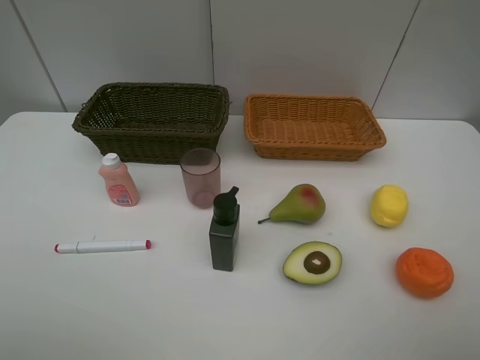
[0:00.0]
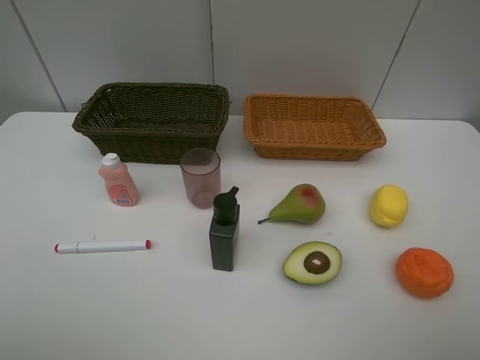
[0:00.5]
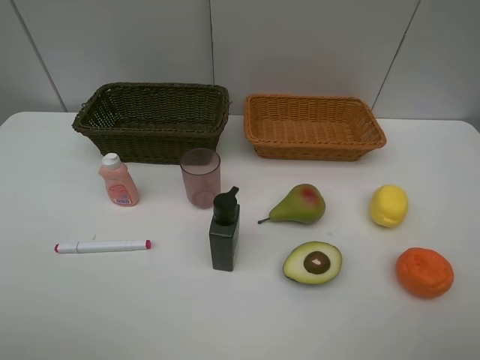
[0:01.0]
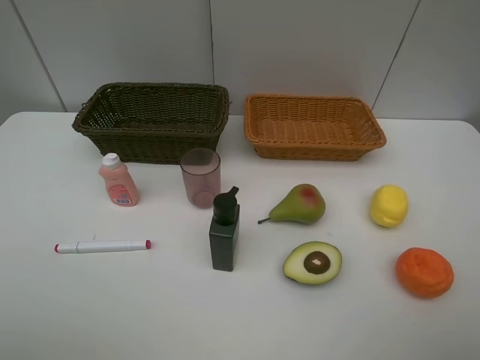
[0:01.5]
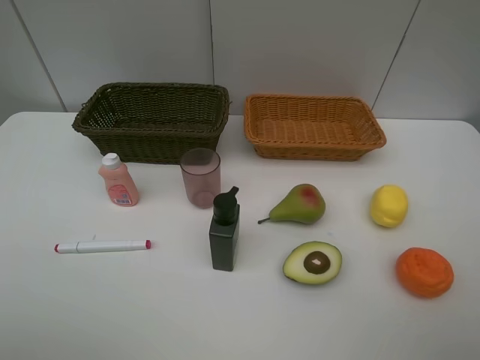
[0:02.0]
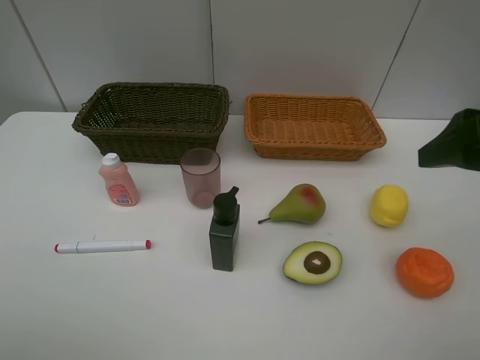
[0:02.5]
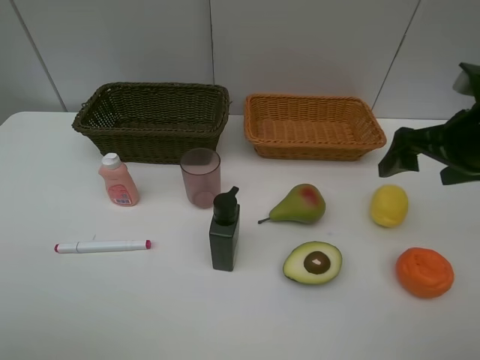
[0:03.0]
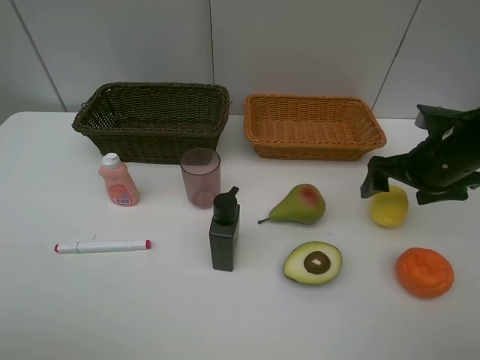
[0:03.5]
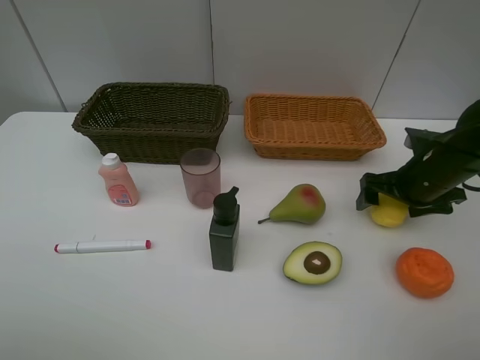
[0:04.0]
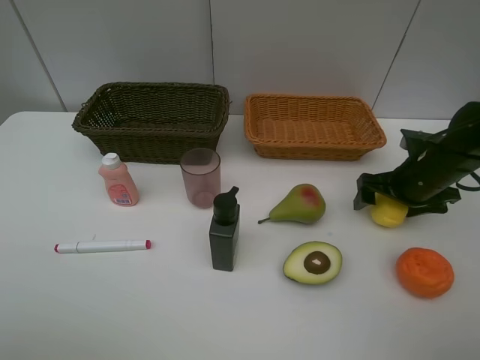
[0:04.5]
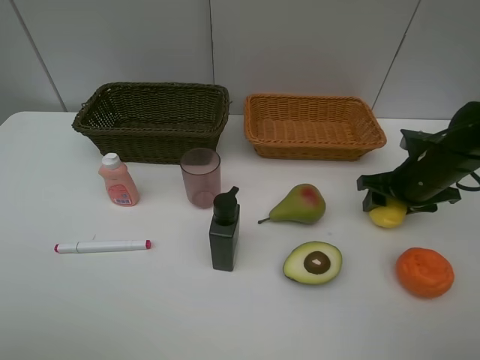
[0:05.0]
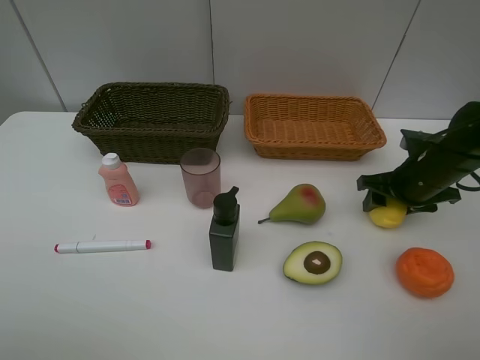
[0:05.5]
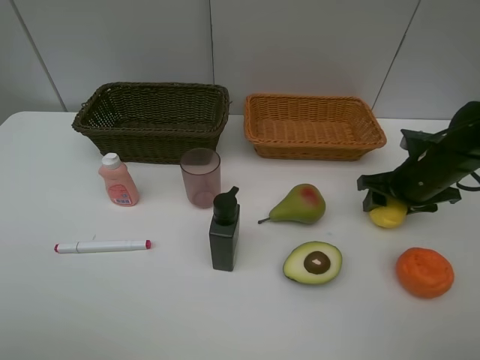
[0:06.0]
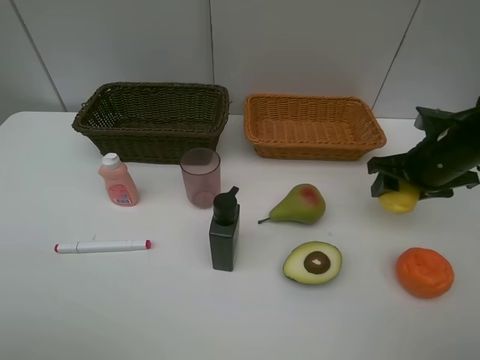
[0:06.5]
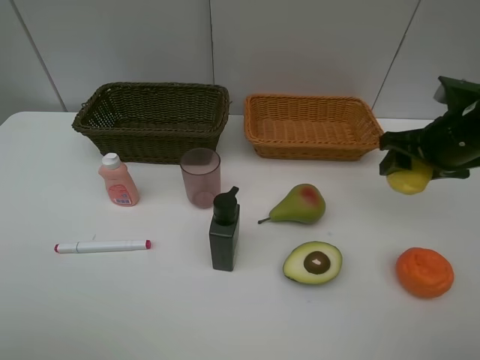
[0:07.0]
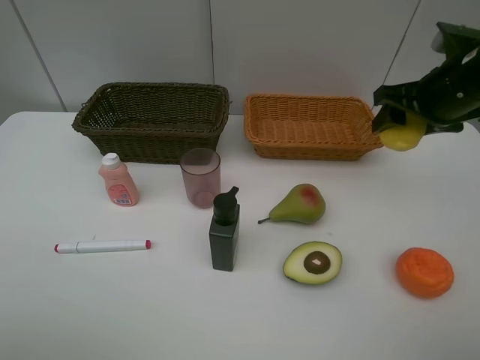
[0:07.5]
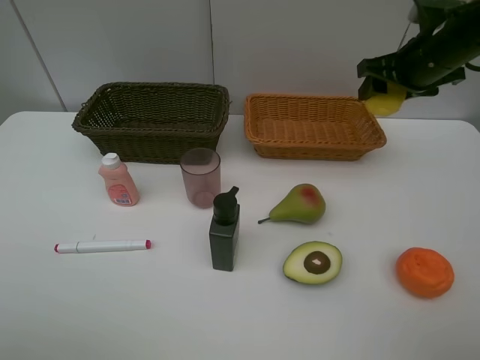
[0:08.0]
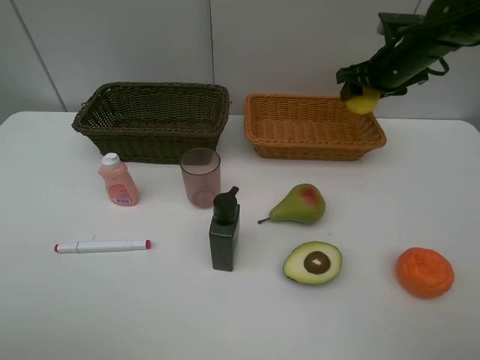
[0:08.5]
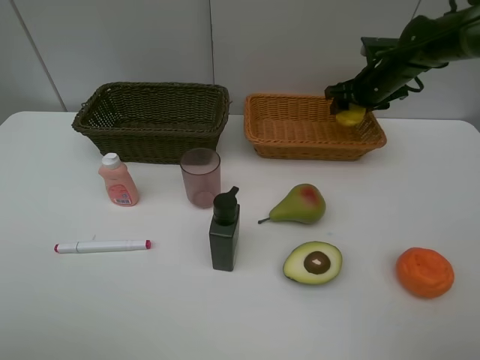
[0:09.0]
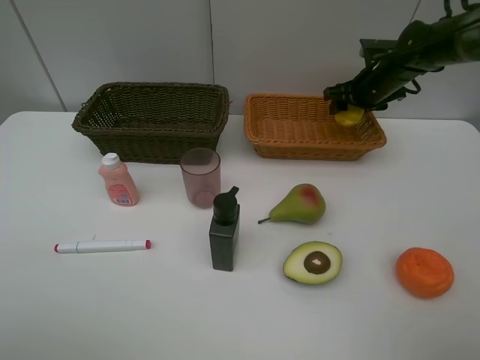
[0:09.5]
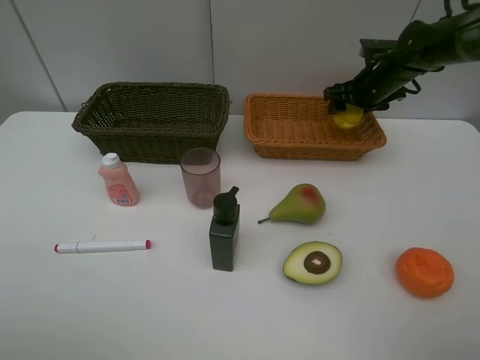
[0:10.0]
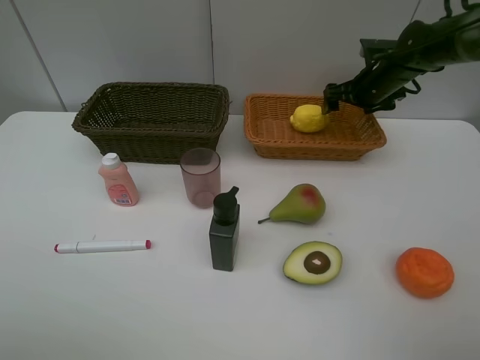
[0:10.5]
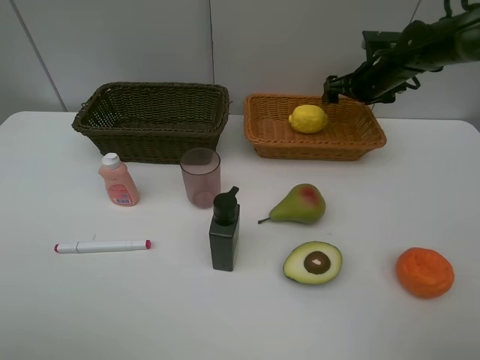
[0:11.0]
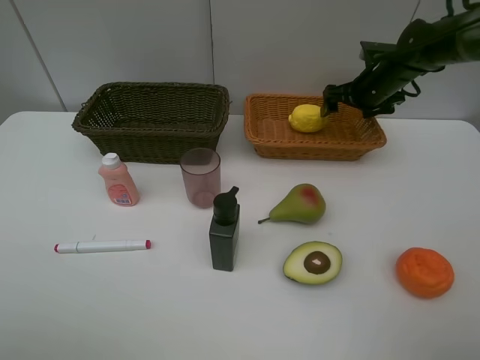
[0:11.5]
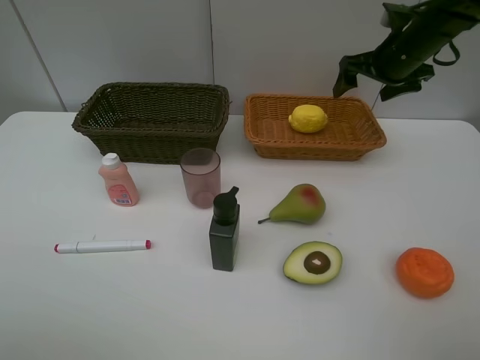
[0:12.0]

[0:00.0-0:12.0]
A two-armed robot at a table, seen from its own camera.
Task of the whole recording: Place multiple objects separately in different baskets.
Step, 0:00.0 to 0:06.5: Pick up the lemon with right gripper.
Step, 0:07.0 to 0:11.0: Place the lemon in the light basket with right gripper.
0:02.0 to 0:04.0: The right gripper is displaced forward and downward by some 30 cm.
0:04.0 to 0:06.0: The right gripper closes.
0:06.0 to 0:08.0: The right gripper heads upward and forward, covering some 15 cm.
0:08.0 to 0:10.0: The right gripper travels forward and downward by about 15 cm, and opens.
0:10.0 to 0:12.0: The right gripper heads upward and backward, covering approximately 10 cm, and opens.

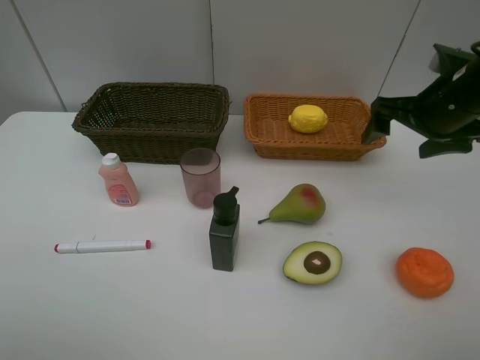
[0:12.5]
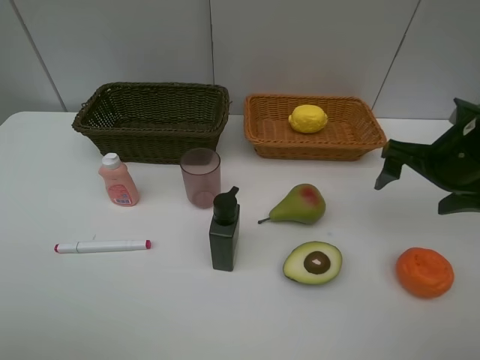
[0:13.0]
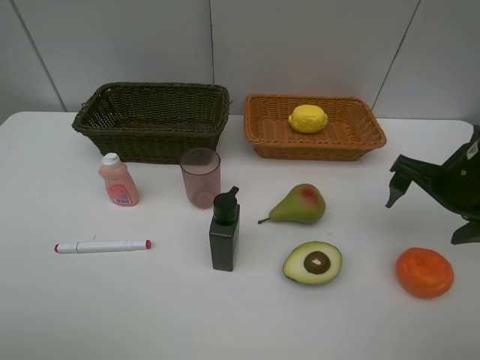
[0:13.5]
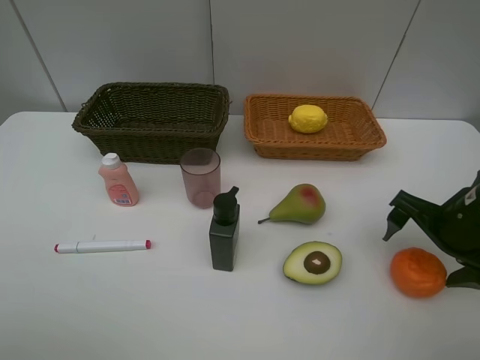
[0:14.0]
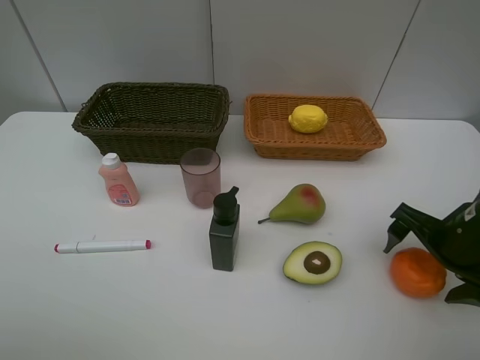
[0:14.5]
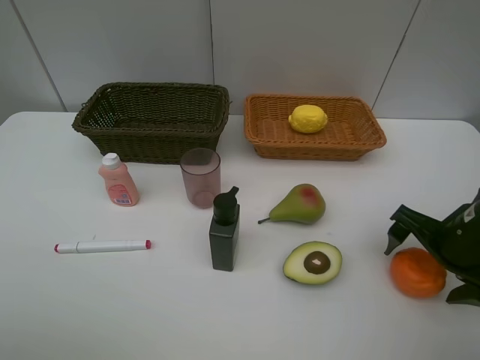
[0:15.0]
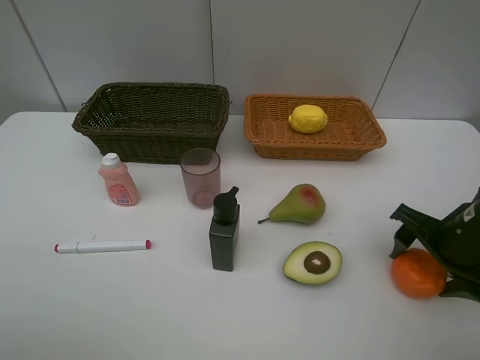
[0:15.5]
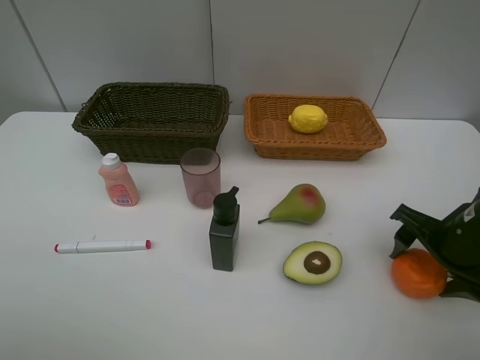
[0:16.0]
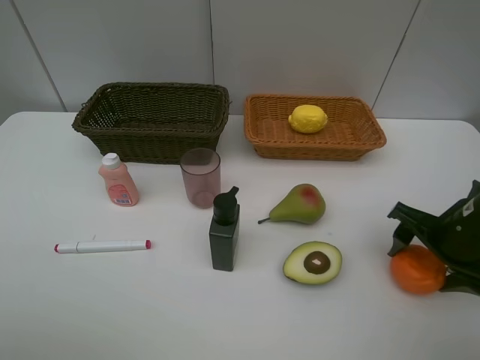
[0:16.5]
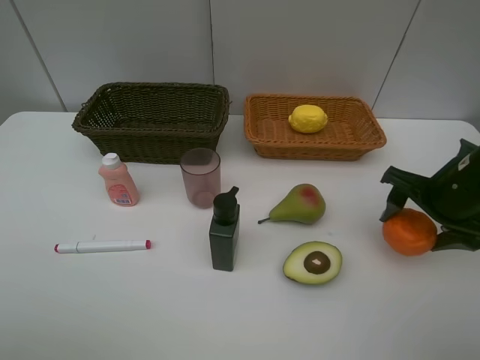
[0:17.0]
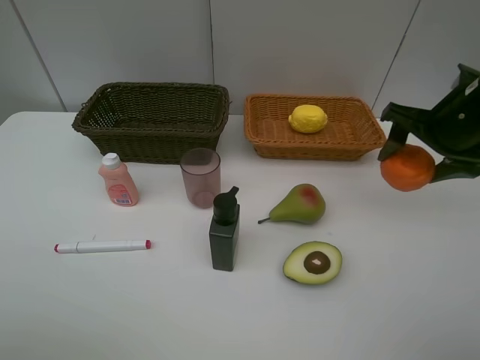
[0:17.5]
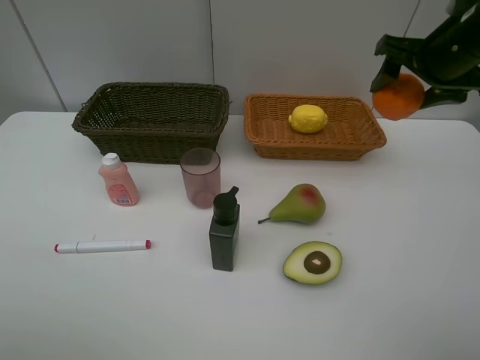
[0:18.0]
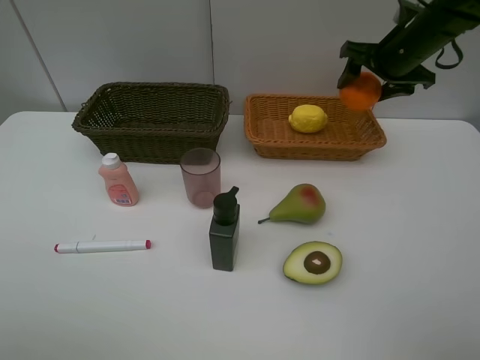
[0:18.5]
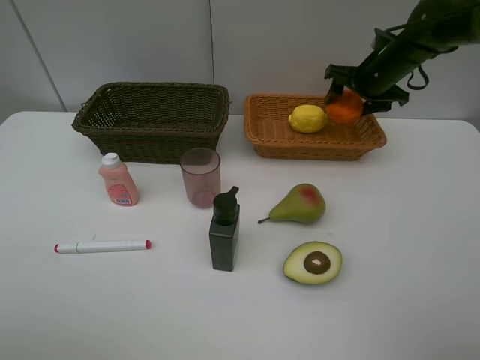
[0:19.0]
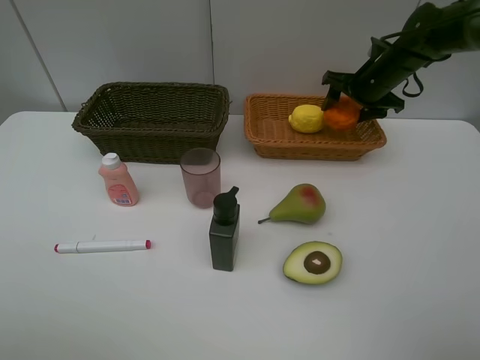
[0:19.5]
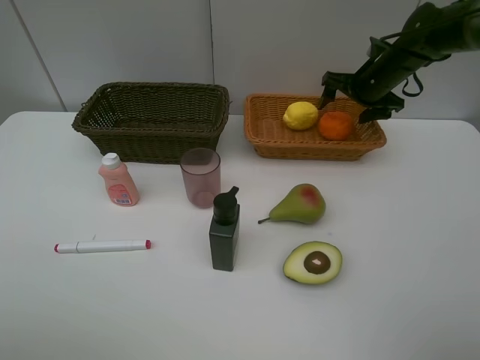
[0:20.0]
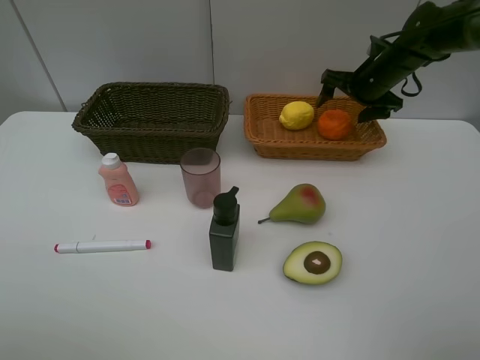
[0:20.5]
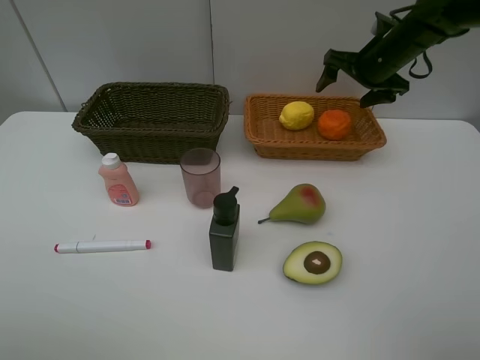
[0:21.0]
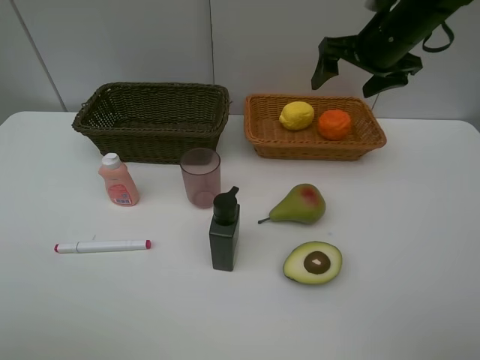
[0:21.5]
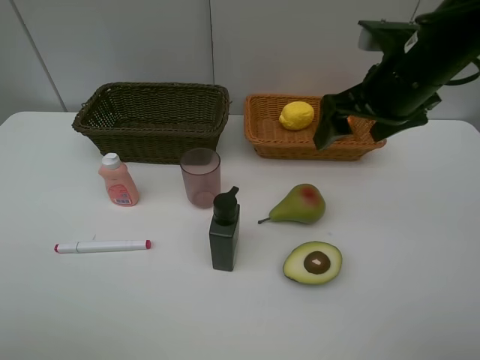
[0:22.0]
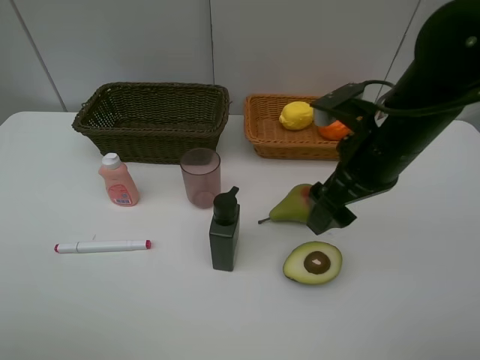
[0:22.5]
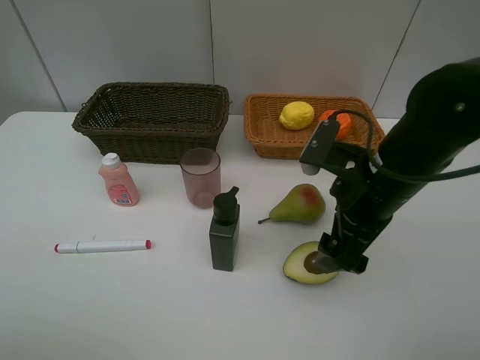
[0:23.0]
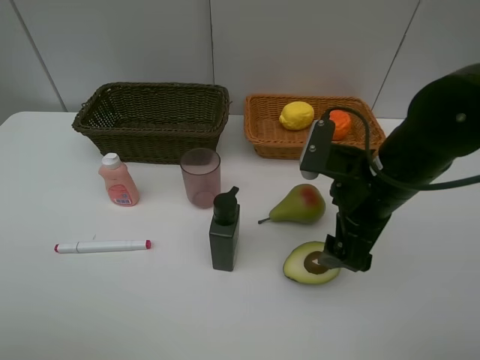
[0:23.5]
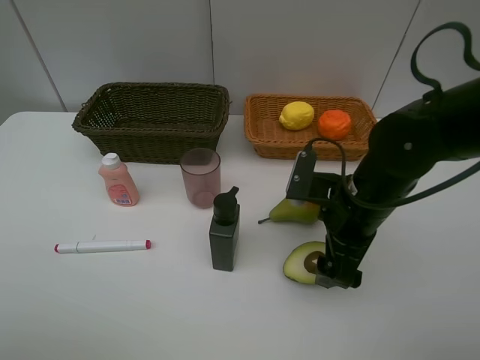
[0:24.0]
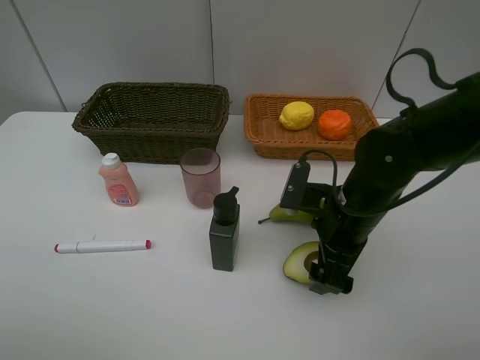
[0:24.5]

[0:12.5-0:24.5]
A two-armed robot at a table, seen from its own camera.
Task of the whole recording: Place multiple objects separately in different baskets.
Step, 0:12.5 to 0:16.5: Pick up the orange with right gripper.
Step, 0:17.0 to 0:21.0: Place the orange in the light basket with right gripper.
0:12.5 to 0:14.5: The right gripper is displaced backward and downward by roughly 15 cm.
0:14.5 to 0:16.5: The right gripper closes.
0:16.5 to 0:18.5: The right gripper travels forward and upward by roughly 25 cm.
0:18.5 to 0:20.5: The right gripper heads downward, covering approximately 5 cm, and opens up.
0:20.5 to 0:22.5: The right gripper moves backward, about 25 cm.
0:22.5 to 0:24.5: The right gripper goes about 10 cm downward.

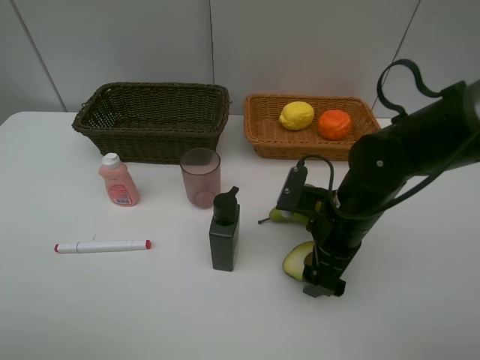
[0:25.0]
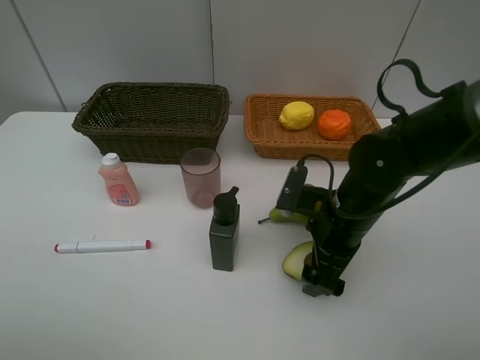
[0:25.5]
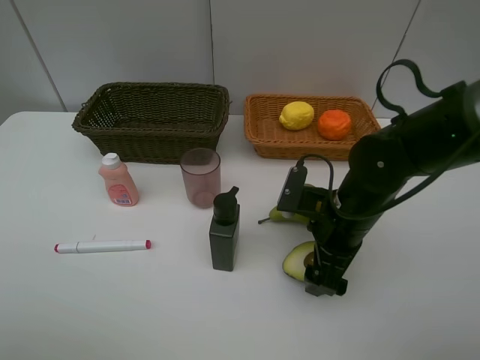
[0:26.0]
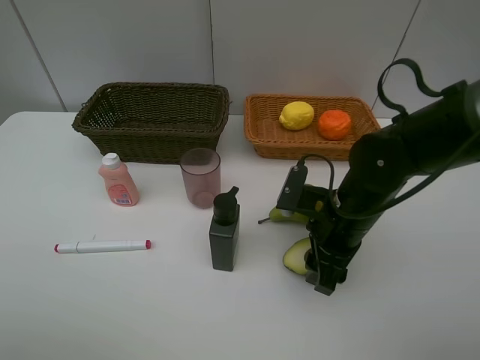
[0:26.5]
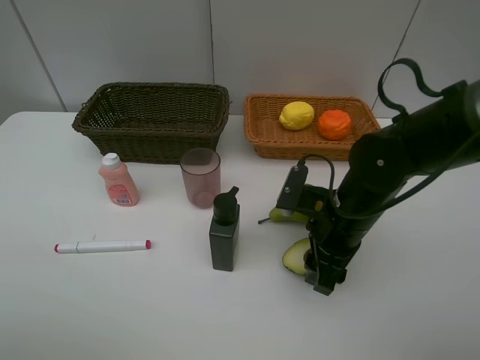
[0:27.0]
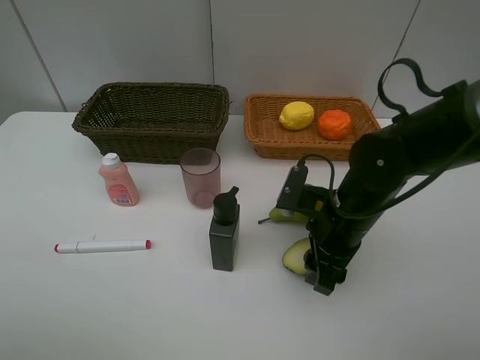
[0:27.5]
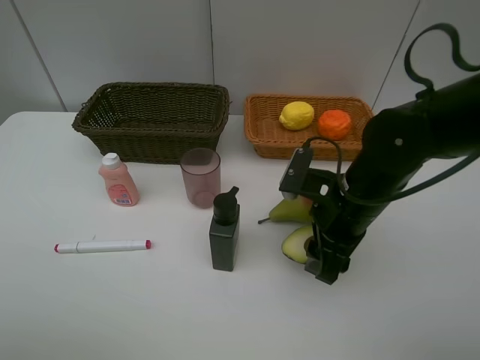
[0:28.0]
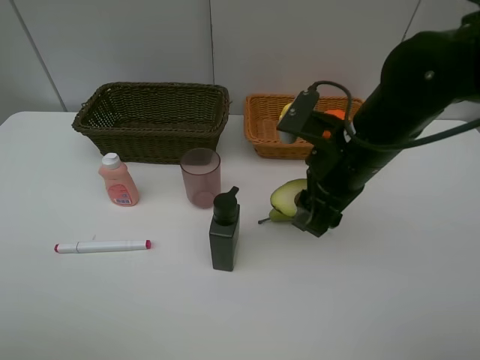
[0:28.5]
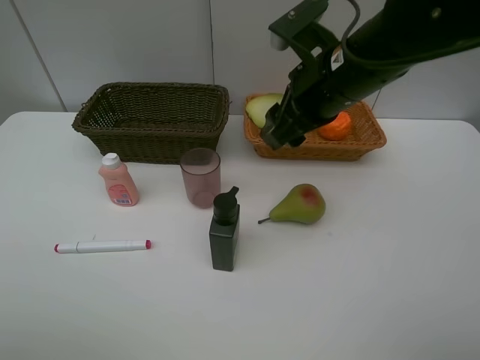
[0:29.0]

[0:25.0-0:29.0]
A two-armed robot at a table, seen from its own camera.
Task of the whole recording: Place multiple objects separately in different baskets.
Step, 0:25.0 to 0:28.0: Pick up the avocado with right gripper.
0:25.0 to 0:27.0: The right gripper closes up.
0:27.0 to 0:29.0: The right gripper heads upward, covering approximately 15 cm.
